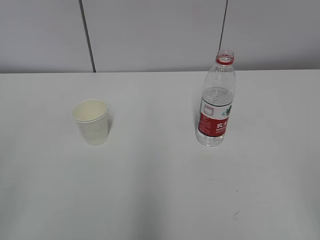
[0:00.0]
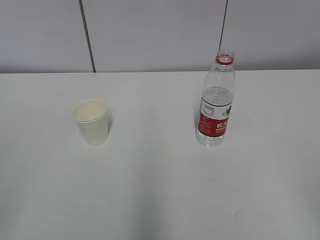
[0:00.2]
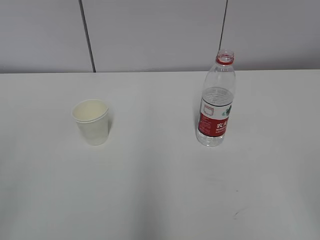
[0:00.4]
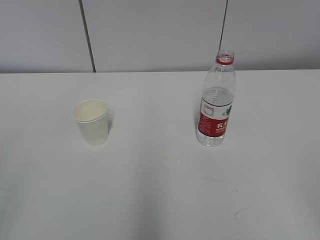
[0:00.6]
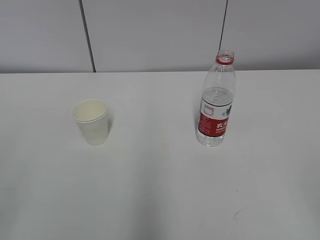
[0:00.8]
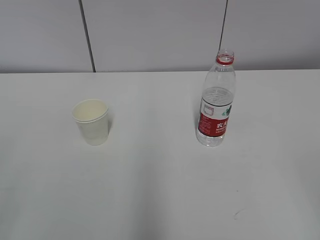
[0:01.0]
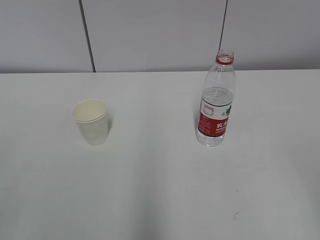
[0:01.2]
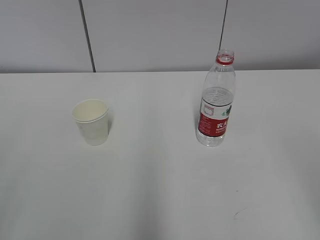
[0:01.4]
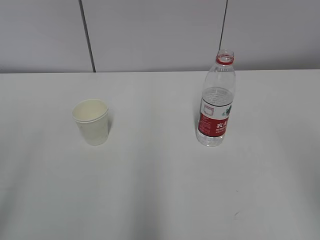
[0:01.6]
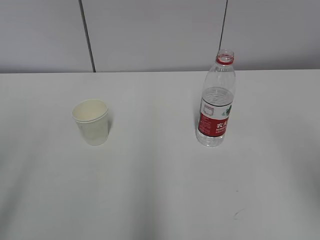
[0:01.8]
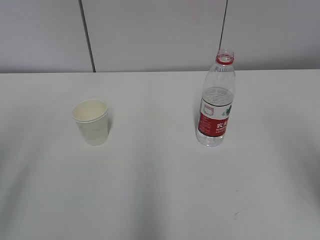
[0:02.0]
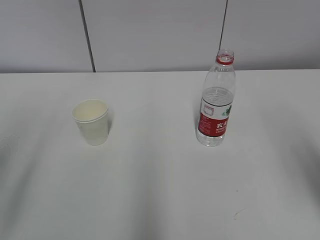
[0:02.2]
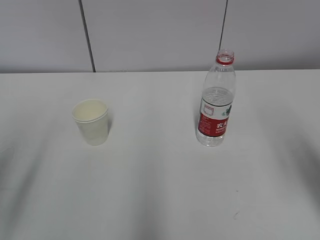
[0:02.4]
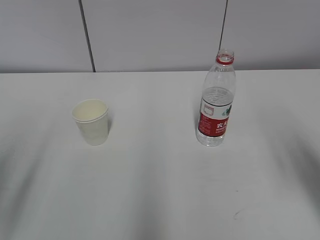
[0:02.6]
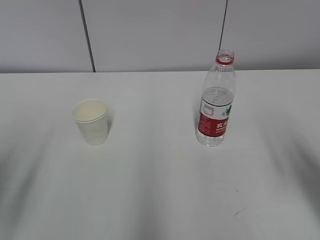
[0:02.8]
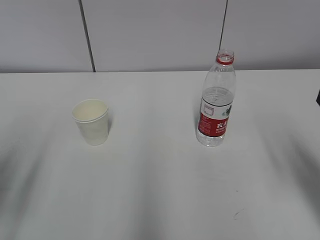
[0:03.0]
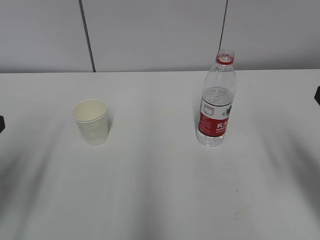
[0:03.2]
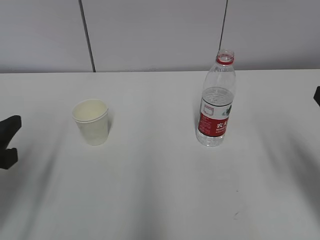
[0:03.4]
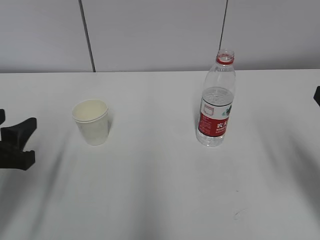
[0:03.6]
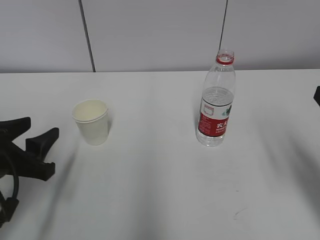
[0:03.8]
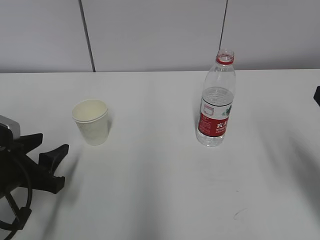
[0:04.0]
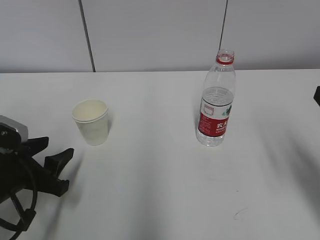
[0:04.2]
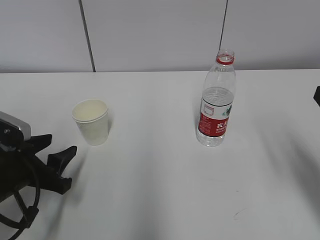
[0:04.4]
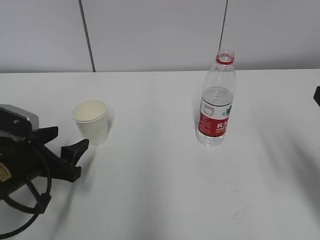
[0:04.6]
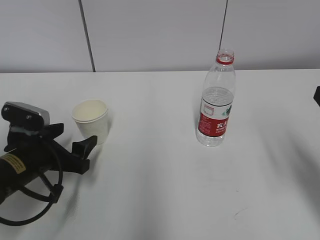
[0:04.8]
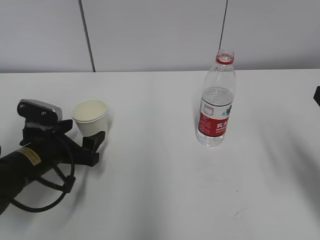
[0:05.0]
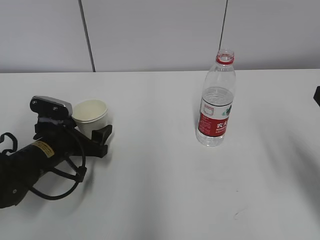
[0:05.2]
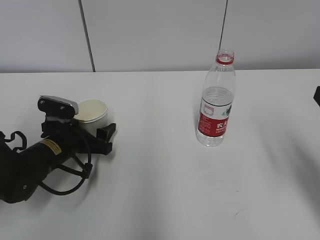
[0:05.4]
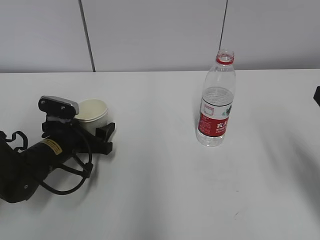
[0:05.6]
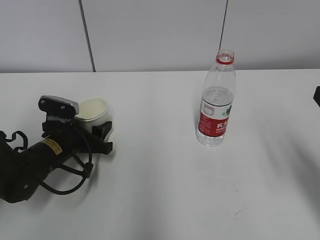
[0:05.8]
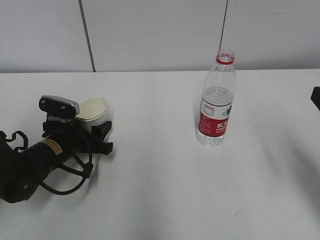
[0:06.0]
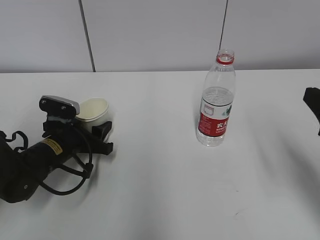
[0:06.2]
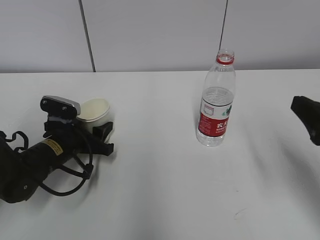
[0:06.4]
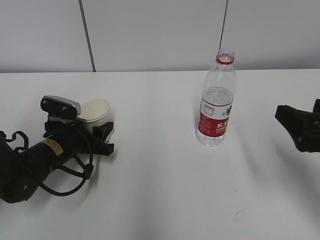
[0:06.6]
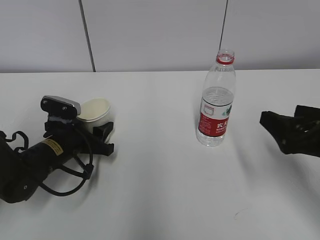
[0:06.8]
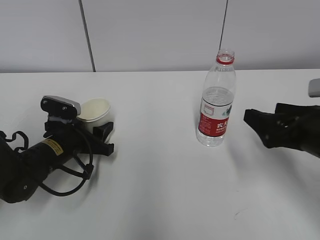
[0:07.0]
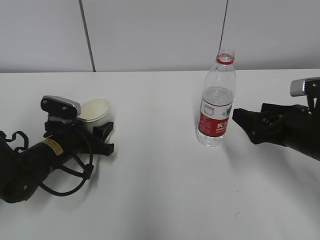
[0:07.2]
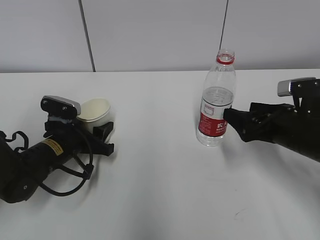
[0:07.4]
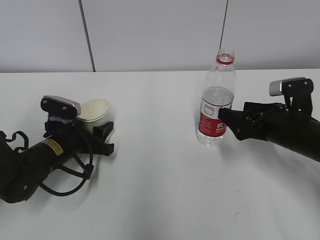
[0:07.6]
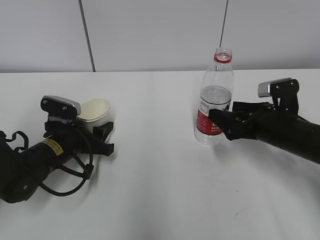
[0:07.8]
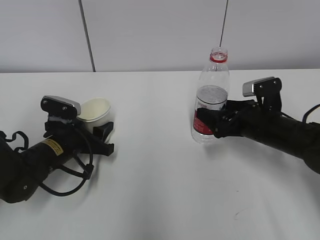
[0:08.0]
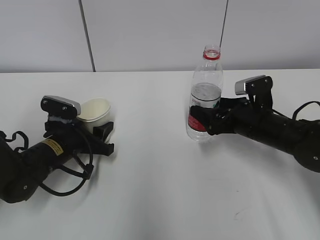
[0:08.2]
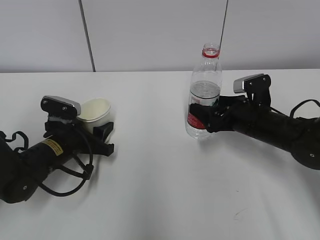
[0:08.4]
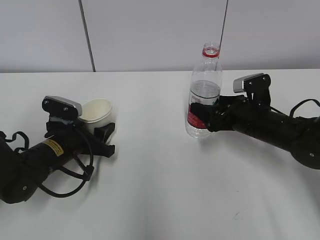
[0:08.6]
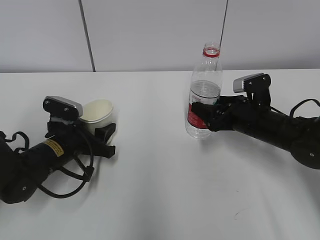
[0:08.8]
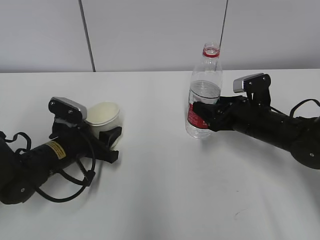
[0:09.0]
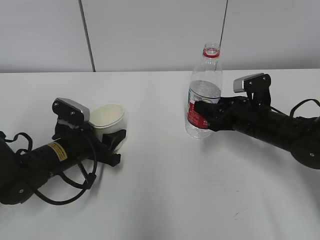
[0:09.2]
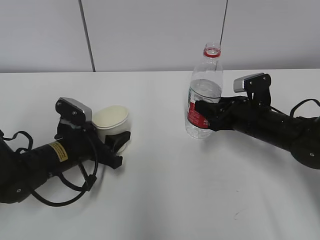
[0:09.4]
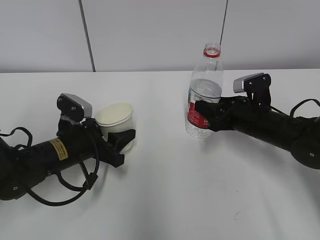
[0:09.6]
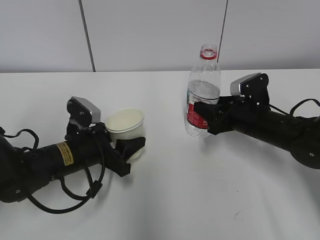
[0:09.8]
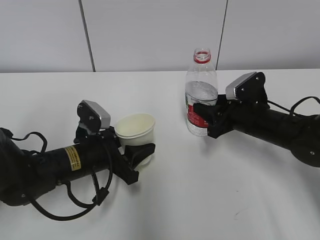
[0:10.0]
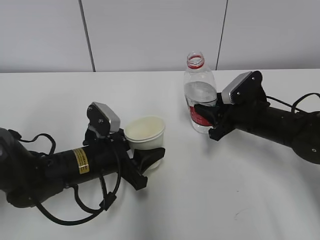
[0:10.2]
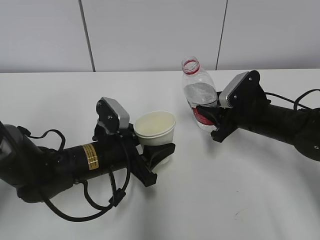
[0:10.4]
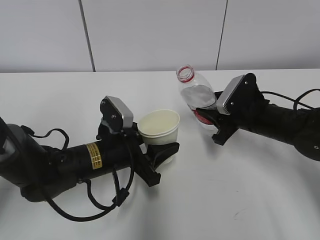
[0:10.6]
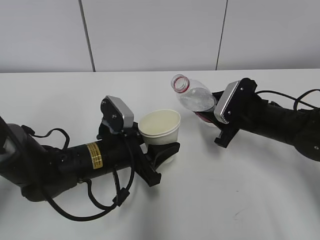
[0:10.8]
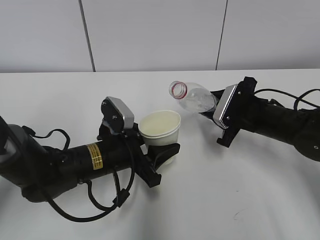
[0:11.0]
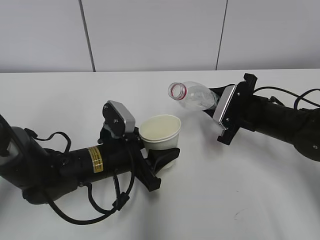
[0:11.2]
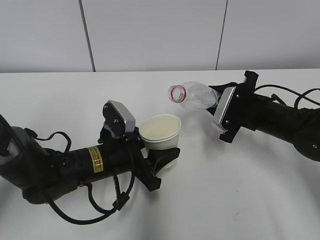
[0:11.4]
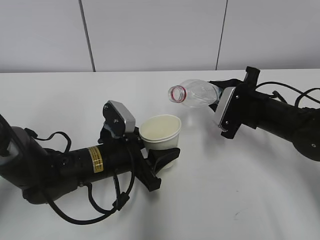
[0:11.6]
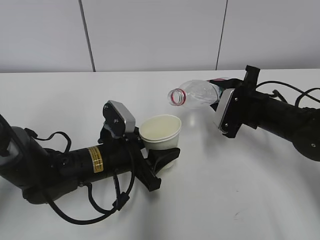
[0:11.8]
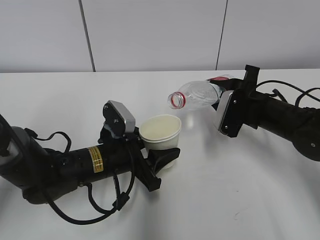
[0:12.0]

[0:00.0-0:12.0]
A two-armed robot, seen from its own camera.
Step, 0:00.0 to 0:04.8: Grab the paper cup with the left hand.
Step, 0:05.0 to 0:07.6: Grab the water bottle with the right hand.
Step, 0:07.8 to 0:11.4: Lift the paper cup with the left hand.
0:01.6 to 0:03.0: The two grippers go approximately 15 cm forward and downward.
0:03.0 to 0:04.4: The left gripper moves downward, forward and to the right, approximately 15 cm.
0:04.4 to 0:06.0: The left gripper moves forward, roughly 10 cm, and opens and closes again.
0:06.0 to 0:07.6: The right gripper moves forward and downward, about 15 cm, and opens up.
0:07.6 to 0:09.0: The right gripper is displaced forward by roughly 5 cm, and closes.
0:09.0 to 0:10.4: The left gripper is displaced to the right by some 10 cm.

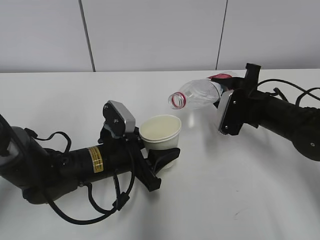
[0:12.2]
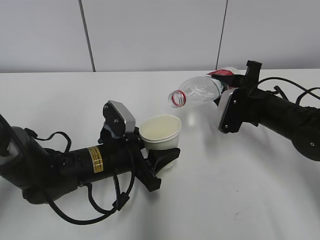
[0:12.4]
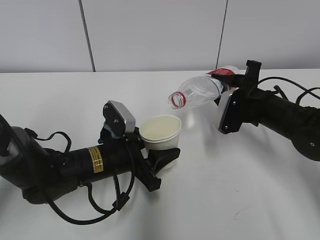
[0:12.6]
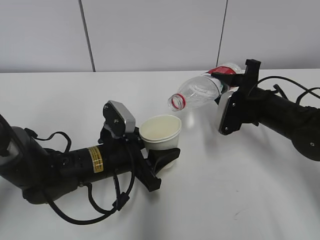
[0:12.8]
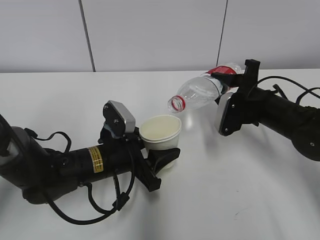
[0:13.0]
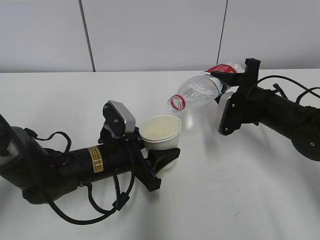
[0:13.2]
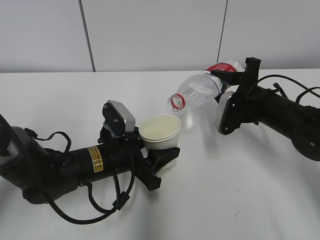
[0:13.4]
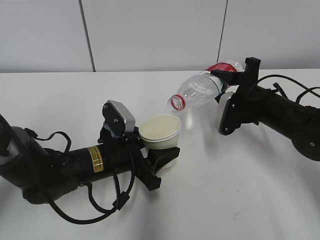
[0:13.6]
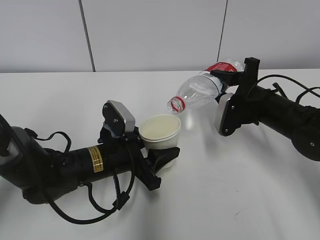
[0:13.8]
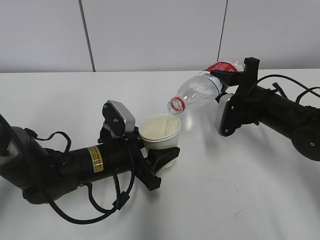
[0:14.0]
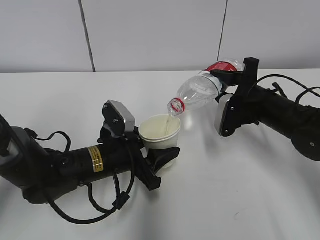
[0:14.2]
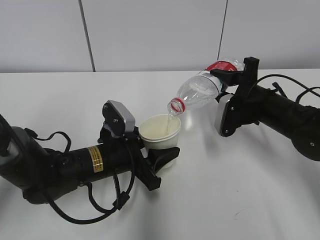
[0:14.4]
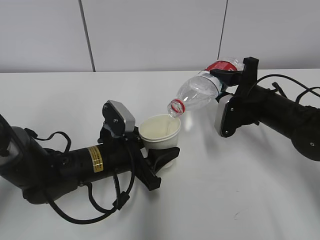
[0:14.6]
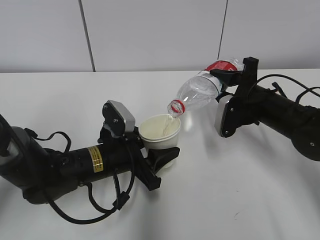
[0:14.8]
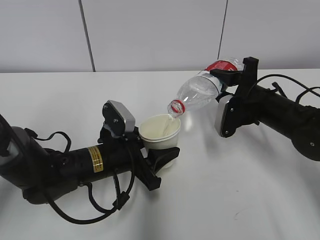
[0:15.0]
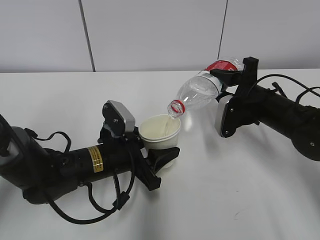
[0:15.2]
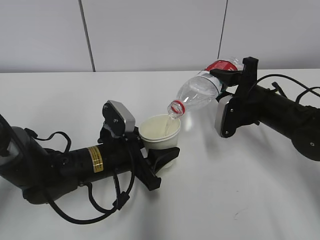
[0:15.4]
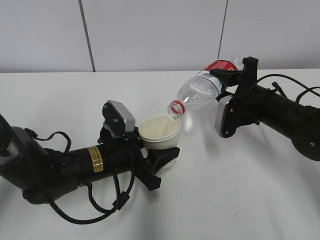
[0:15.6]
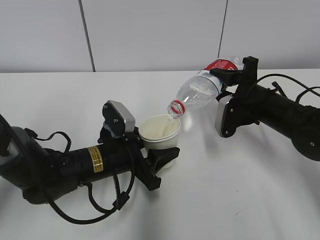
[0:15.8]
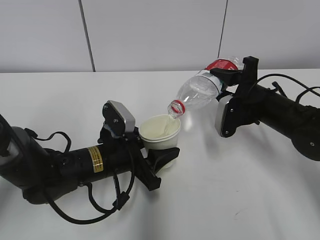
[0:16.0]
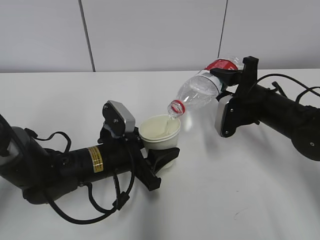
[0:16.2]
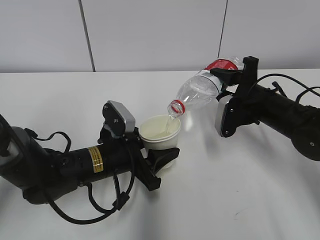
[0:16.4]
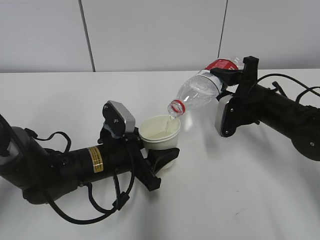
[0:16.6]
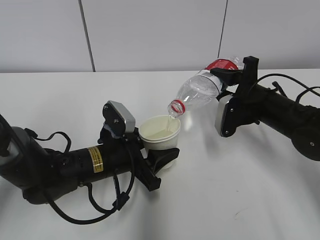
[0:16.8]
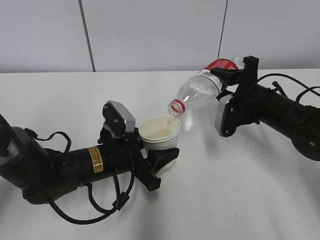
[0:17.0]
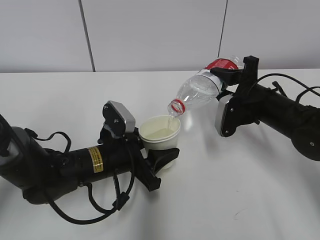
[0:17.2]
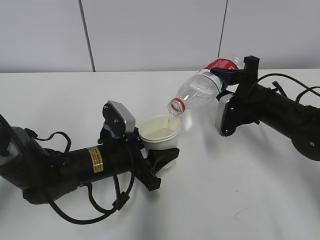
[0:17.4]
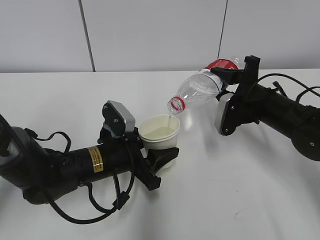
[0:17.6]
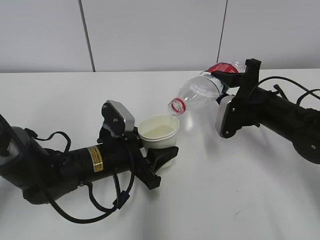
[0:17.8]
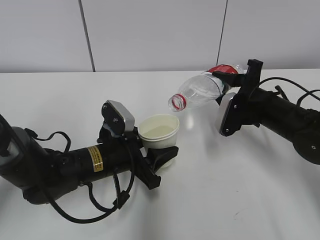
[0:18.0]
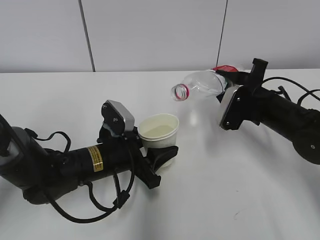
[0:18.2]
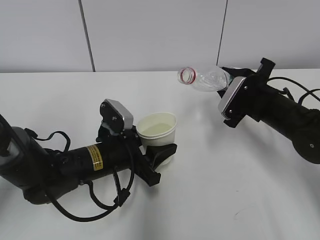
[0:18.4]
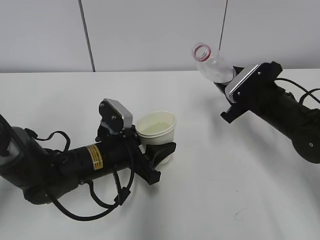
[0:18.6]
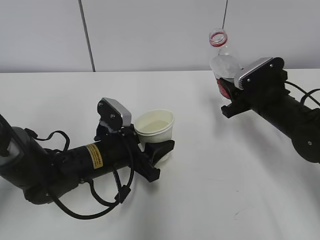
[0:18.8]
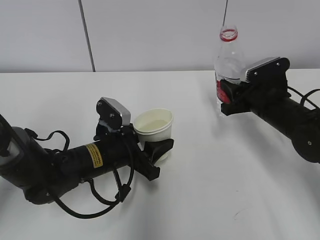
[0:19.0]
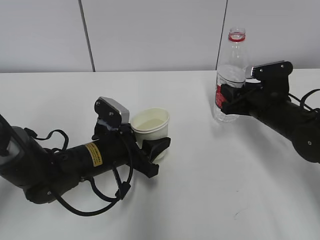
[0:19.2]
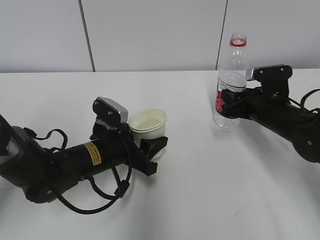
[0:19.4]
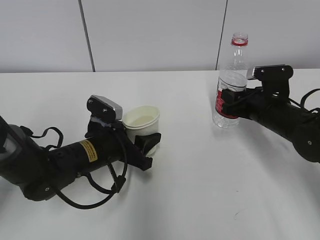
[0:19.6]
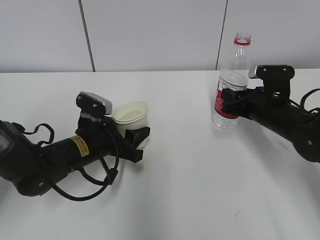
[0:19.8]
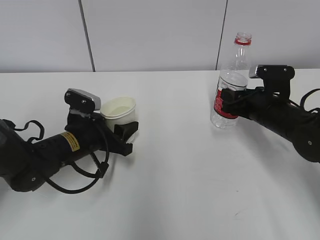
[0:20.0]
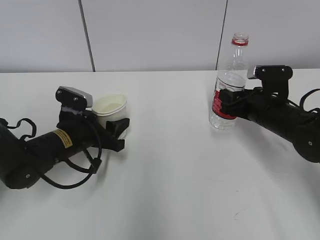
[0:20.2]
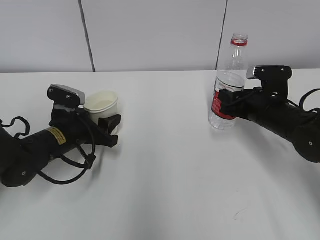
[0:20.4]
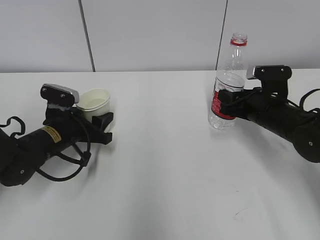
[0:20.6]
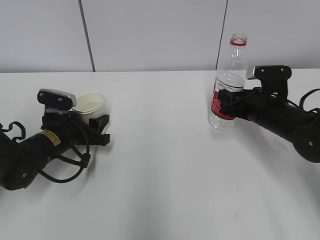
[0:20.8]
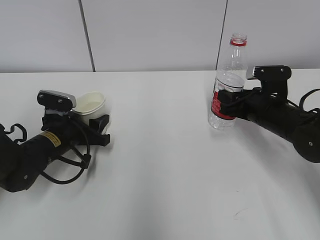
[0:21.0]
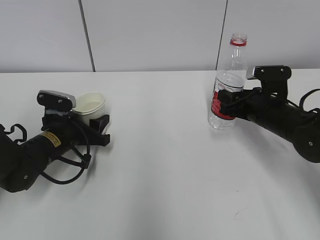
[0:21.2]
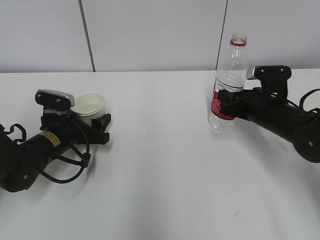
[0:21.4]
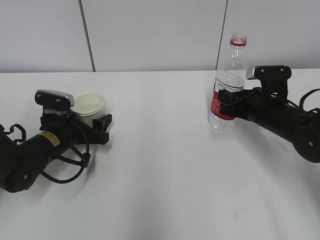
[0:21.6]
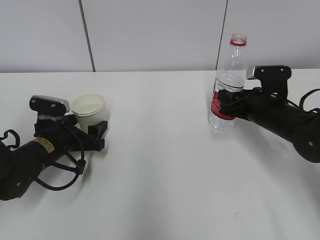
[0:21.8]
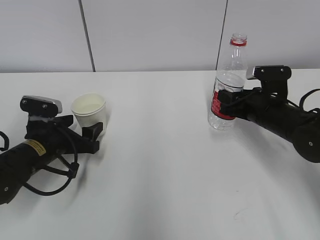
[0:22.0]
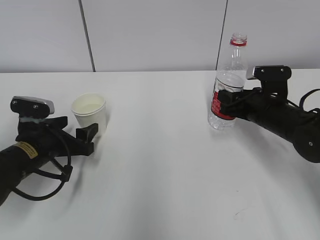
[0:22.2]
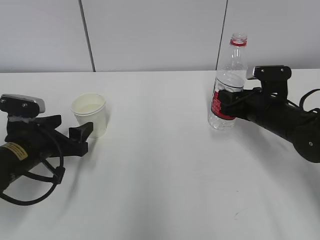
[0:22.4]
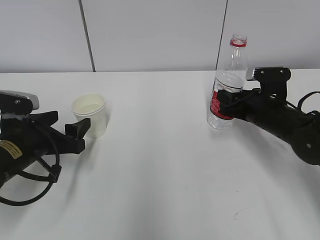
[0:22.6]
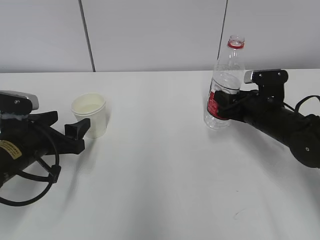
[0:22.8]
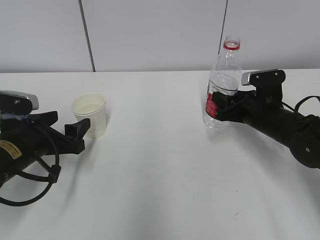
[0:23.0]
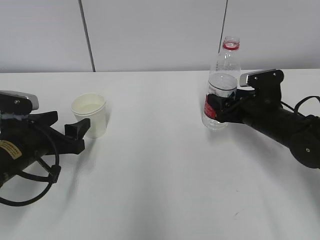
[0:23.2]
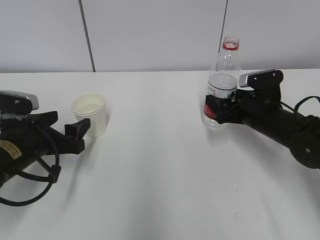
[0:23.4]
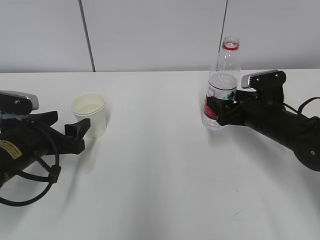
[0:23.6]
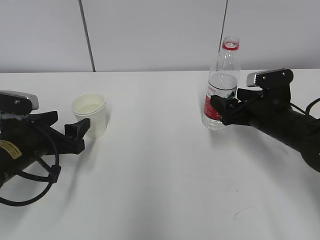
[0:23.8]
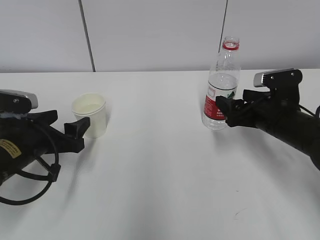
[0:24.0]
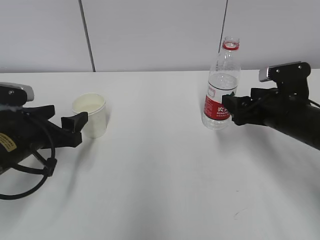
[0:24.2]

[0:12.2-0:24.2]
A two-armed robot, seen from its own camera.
Step, 0:12.2 to 0:14.8: Pour water with the right hand.
Step, 0:17.8 to 0:19.4: Place the water bottle with the right hand.
0:12.2 to 0:13.8: The grippers move only a little.
0:13.8 to 0:16.6: Both grippers stay put.
0:16.6 to 0:18.2: The grippers move only a little.
0:18.2 to 0:19.8: The left gripper ends up roughly 5 cm from where it was.
0:19.8 to 0:21.2: The left gripper is displaced to the left by approximately 5 cm.
0:21.2 to 0:22.6: The left gripper is displaced backward by approximately 5 cm, and opens its fingers.
0:22.6 to 0:24.2: The right gripper ends up approximately 5 cm from where it was, and opens up.
